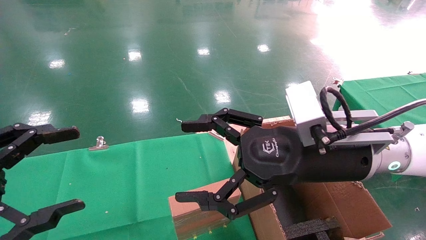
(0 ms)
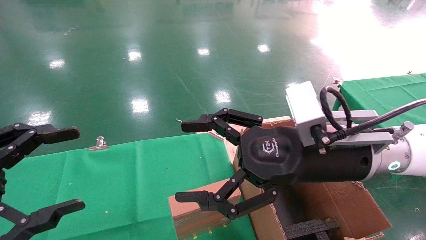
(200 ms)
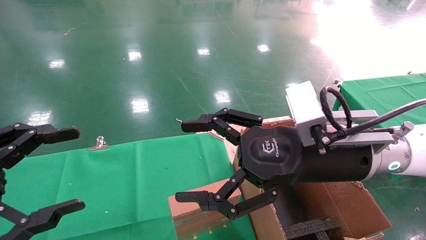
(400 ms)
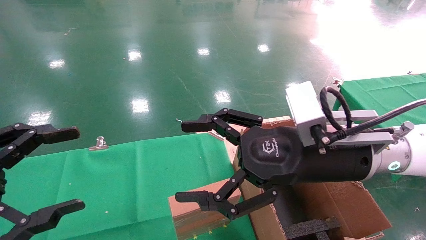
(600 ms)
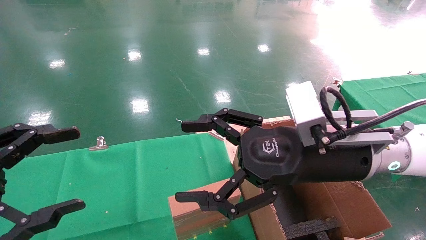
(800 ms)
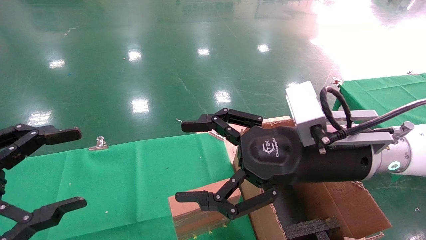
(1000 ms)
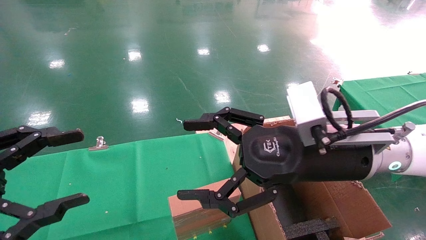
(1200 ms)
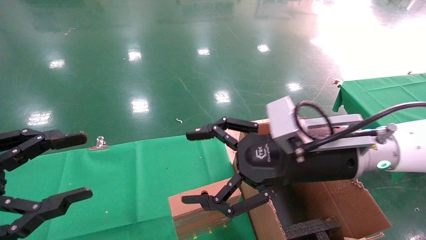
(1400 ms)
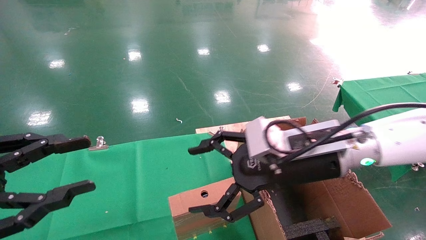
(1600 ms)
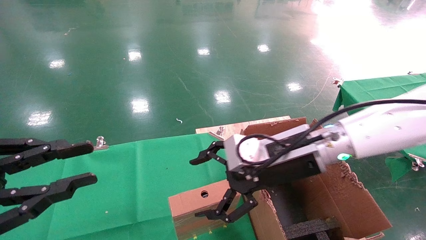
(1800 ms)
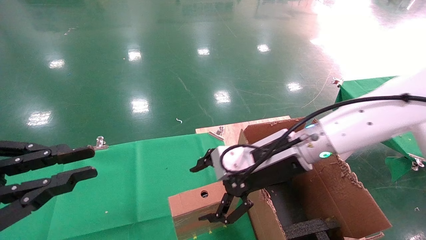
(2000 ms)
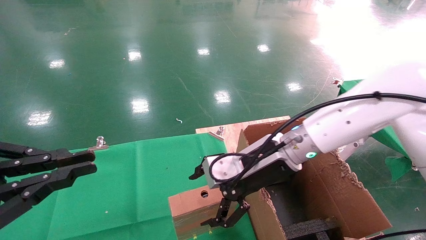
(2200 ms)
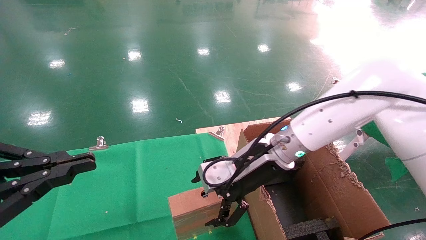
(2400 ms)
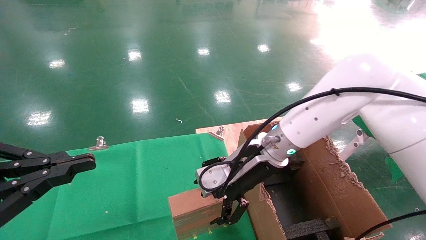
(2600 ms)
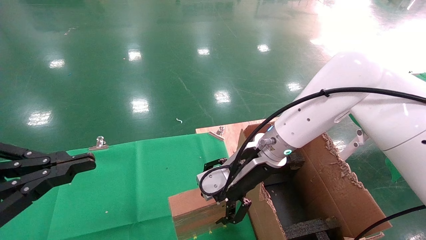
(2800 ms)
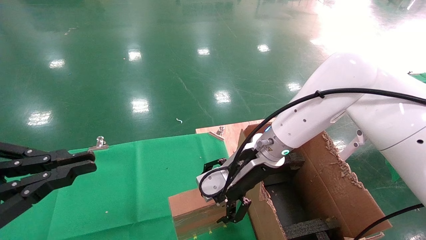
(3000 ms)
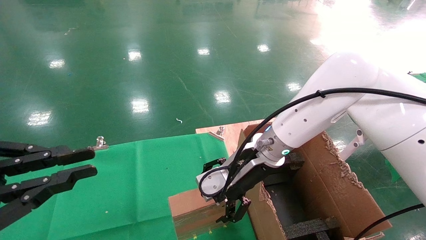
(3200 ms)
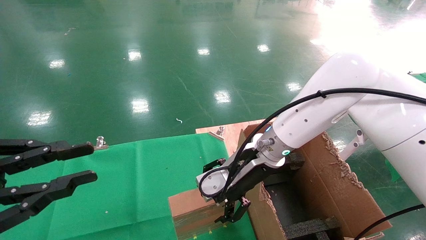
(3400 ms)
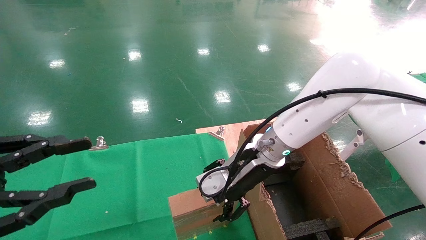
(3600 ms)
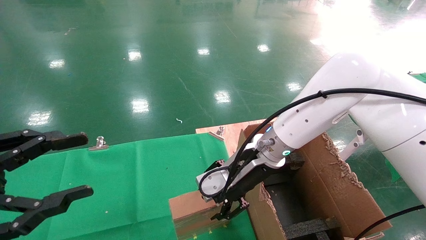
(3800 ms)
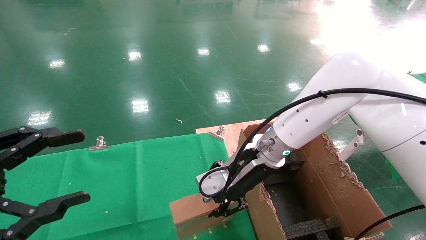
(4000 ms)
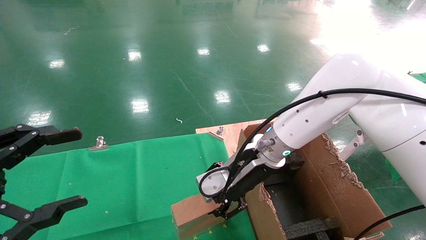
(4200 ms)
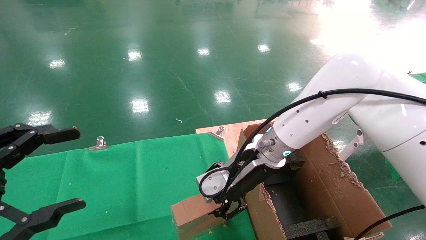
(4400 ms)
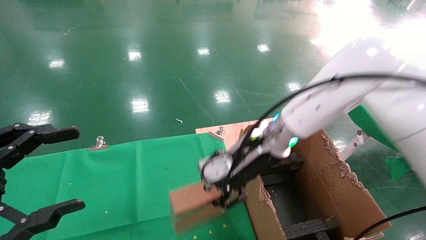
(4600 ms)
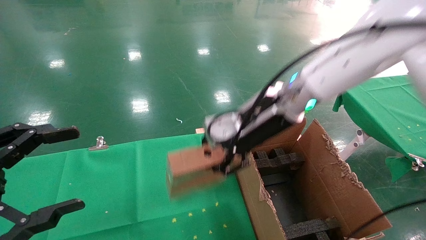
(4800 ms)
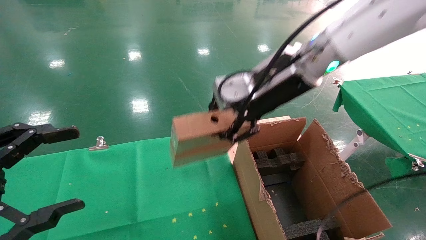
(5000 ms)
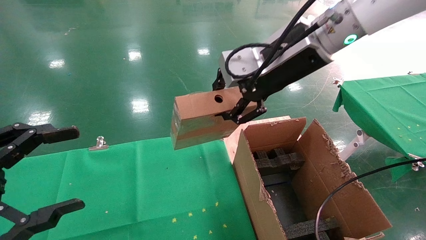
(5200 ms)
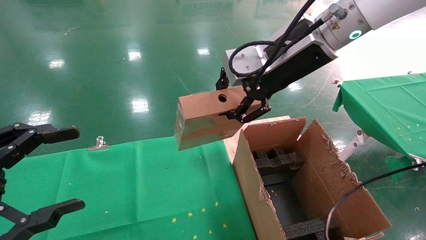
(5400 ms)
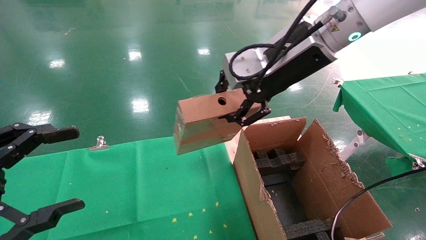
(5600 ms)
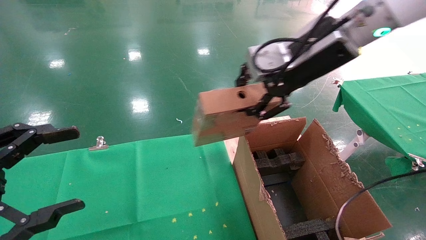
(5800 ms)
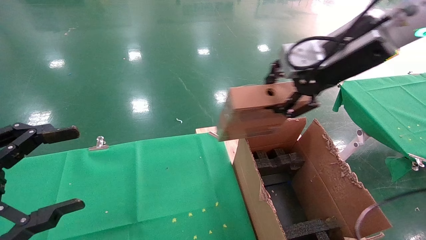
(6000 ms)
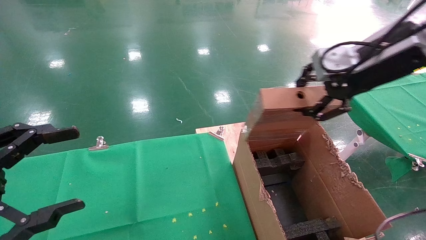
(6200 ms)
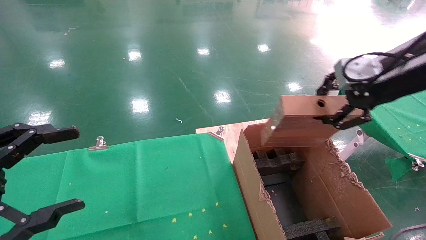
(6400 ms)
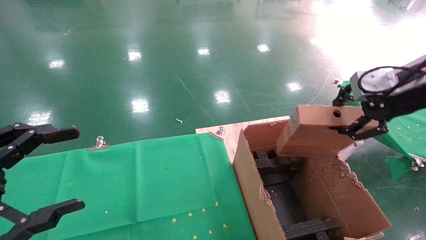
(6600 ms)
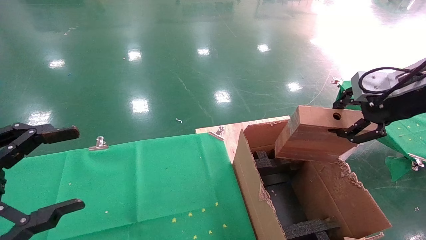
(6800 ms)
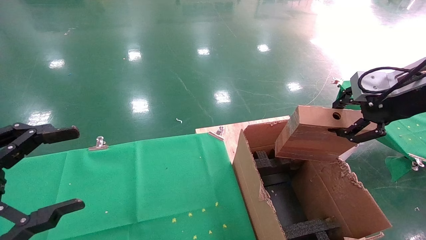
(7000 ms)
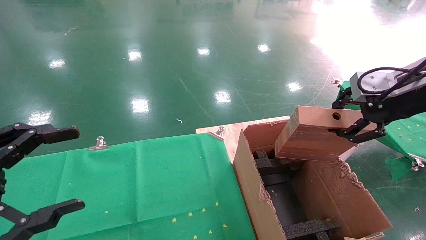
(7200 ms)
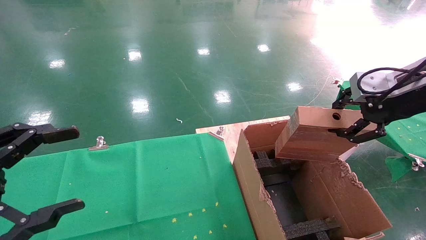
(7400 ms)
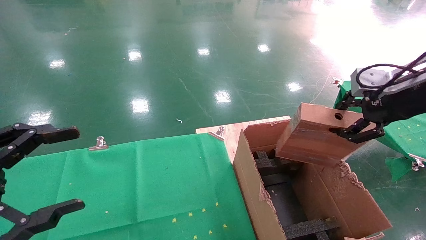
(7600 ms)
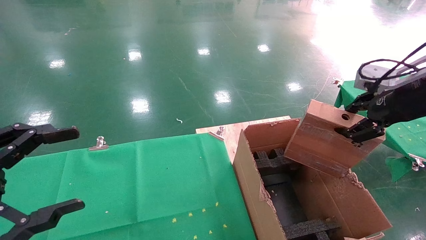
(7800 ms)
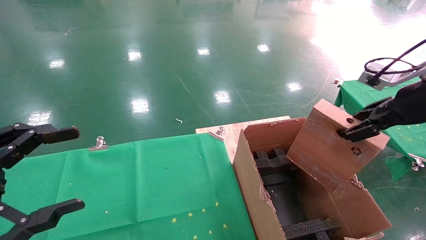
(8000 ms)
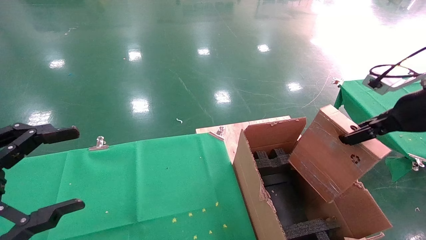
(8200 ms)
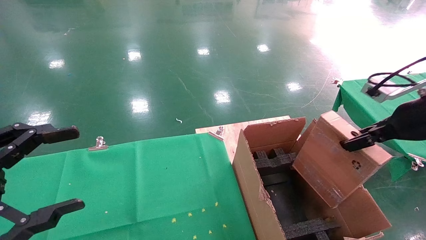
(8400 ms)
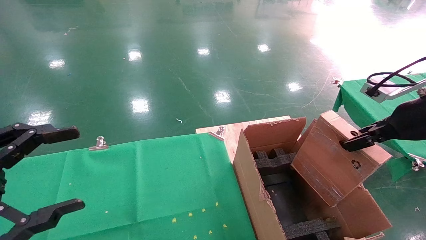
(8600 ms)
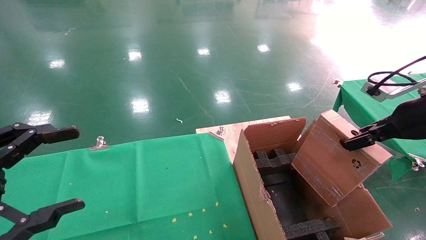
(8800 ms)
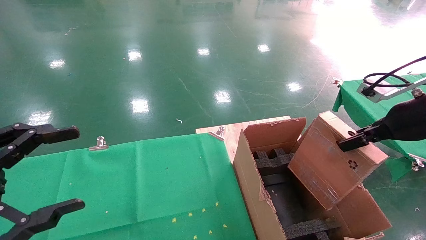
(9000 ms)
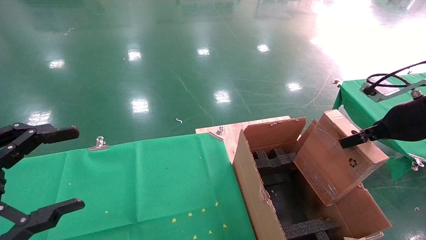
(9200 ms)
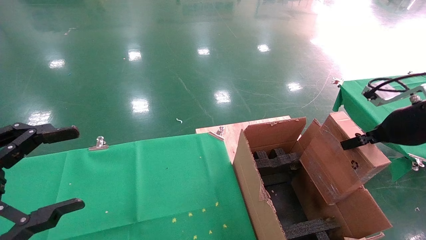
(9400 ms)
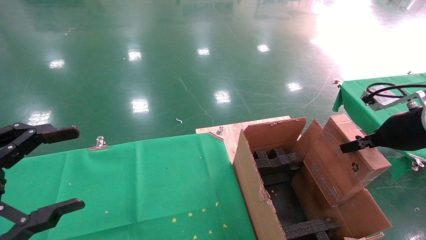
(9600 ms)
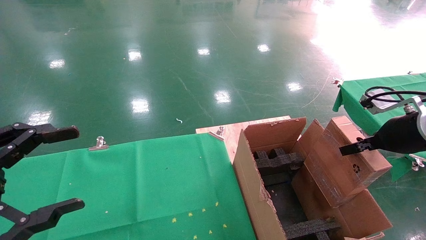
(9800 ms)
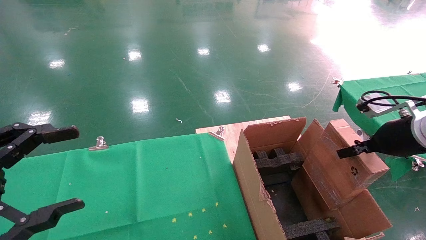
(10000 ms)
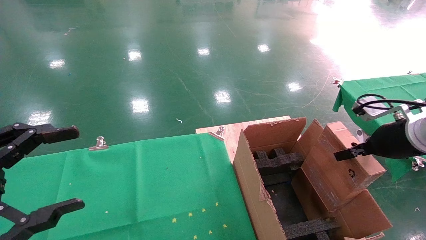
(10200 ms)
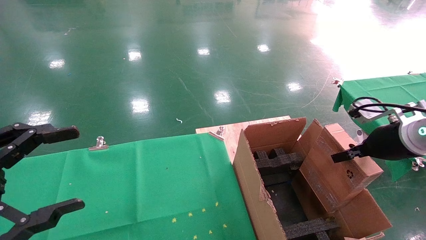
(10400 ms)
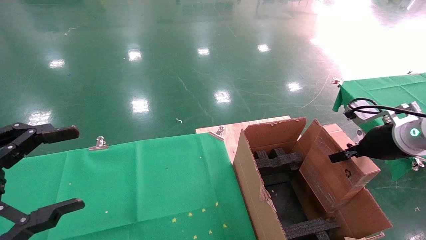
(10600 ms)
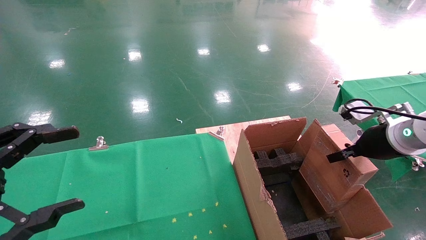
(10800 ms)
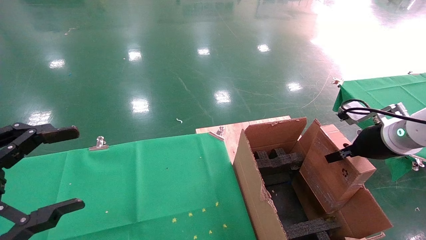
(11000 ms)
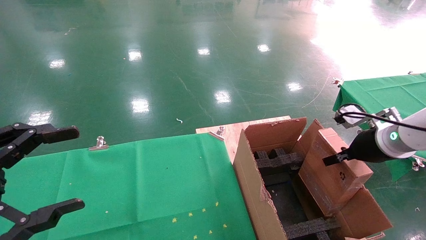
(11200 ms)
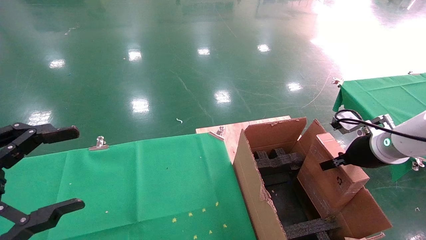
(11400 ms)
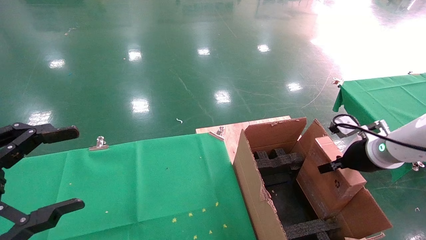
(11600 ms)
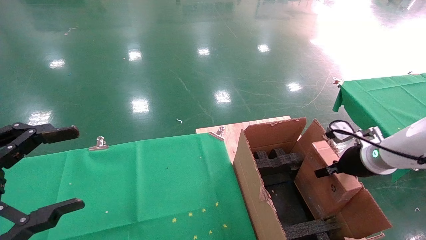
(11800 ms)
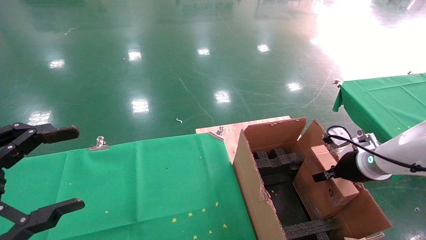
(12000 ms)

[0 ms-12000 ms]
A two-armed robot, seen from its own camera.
Task of the whole recording: using a robotic arm to pick up a cardboard box and palace it the carton.
Step, 1200 ms to 3800 ms: Pick up the mouse and the power cord paper box.
0 ms to 1600 ms: The left gripper closes its fingers.
1600 ms to 3000 ms: The right gripper heads forward and to the left, covering roughly 10 cm; the left gripper closes up.
3000 ms to 4400 ms: The left gripper opens; the right gripper closes its fingers.
4400 ms to 6000 ms: The right gripper is displaced upward and to the right by approximately 25 cm.
6000 ms to 7600 ms: The right gripper travels to the right and downward by some 15 cm.
7600 ms to 9000 ms: The right gripper is displaced downward by roughly 5 cm.
9000 ms to 10400 ms: The right gripper shifts approximately 5 cm downward.
10400 ms to 12000 ms: The right gripper goes about 10 cm downward.

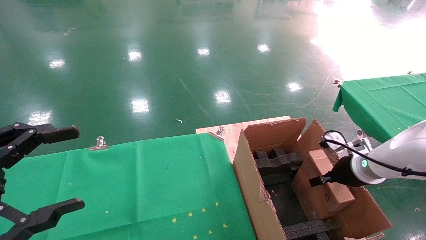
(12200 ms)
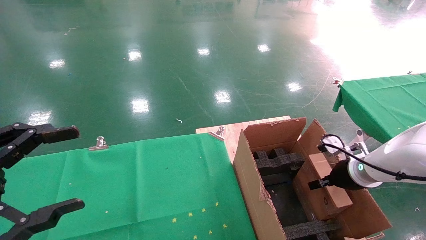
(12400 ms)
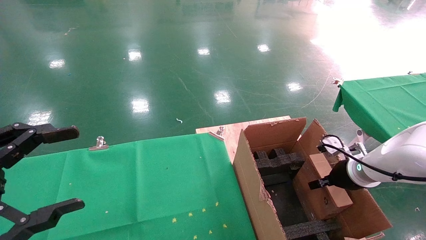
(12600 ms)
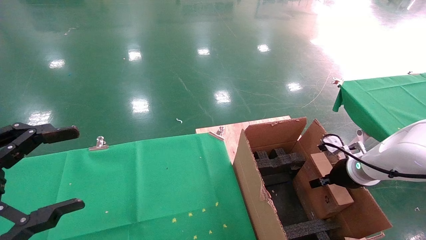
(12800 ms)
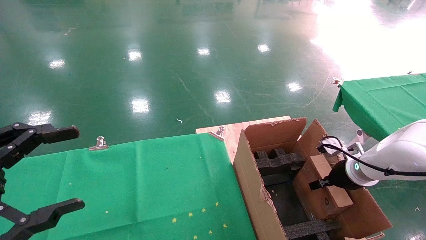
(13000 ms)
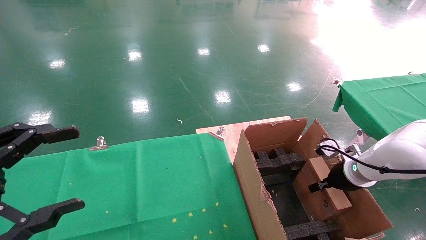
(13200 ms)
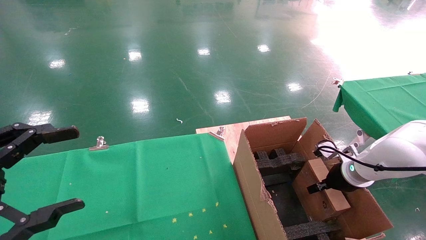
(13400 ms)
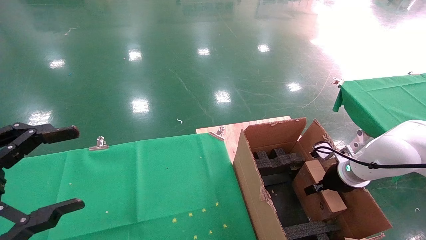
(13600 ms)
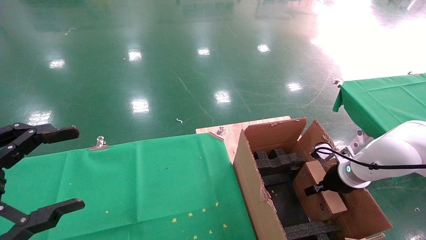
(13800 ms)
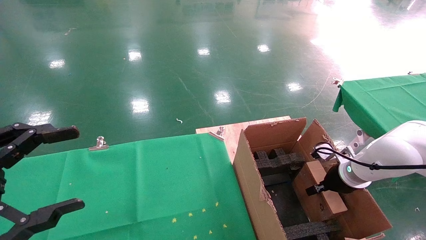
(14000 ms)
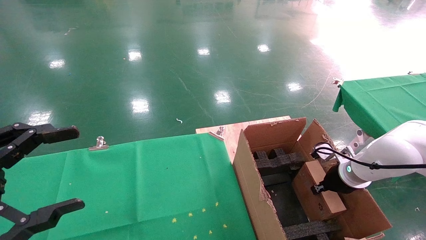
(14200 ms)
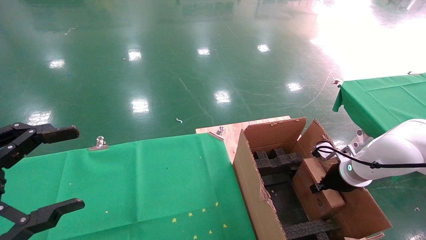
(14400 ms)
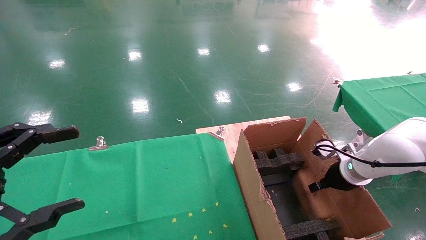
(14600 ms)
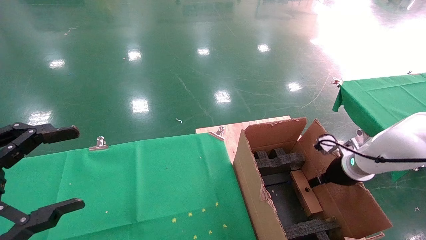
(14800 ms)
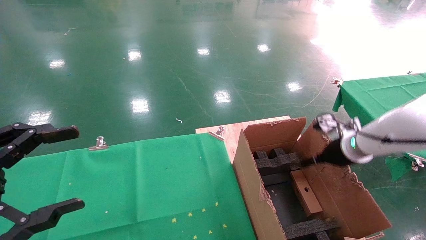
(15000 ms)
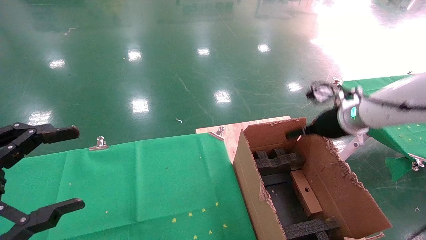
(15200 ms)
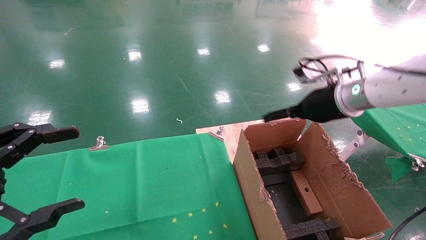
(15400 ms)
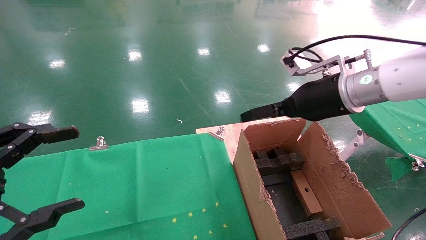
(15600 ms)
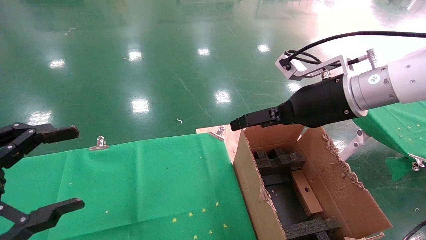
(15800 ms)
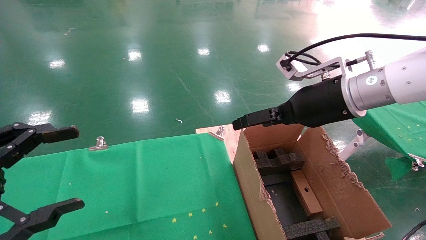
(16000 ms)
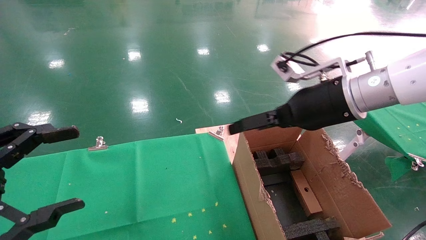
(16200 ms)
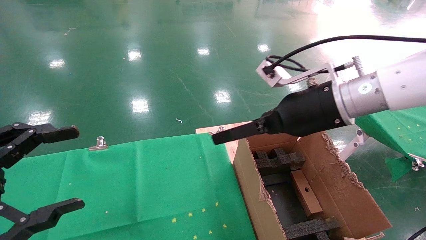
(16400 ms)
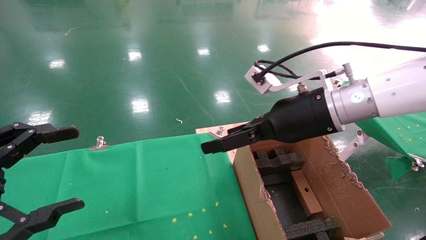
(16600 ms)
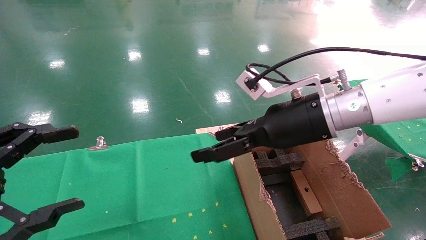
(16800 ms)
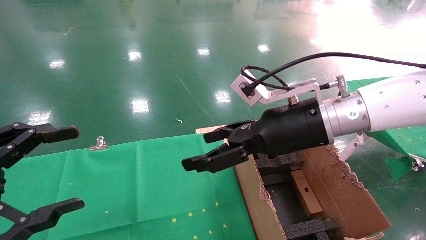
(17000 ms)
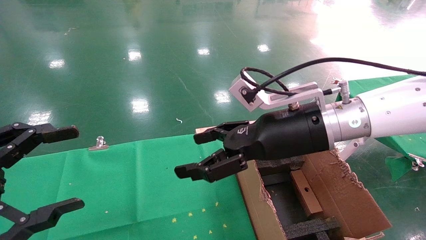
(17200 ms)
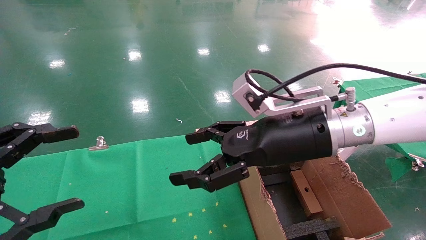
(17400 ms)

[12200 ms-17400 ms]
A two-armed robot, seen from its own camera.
Task of the whole recording: using a robotic arm to pick up a cardboard box and palace it the carton.
Step, 12200 ms to 14800 ms: Place the mouse and the power cord paper box into the container.
12200 ms to 14000 ms: The right gripper shifts by approximately 5 cm.
14000 ms to 15600 ms: The right gripper moves upward and to the left, about 25 cm, and opens.
15600 ms to 17400 ms: The right gripper is displaced to the left and backward by some 10 cm.
